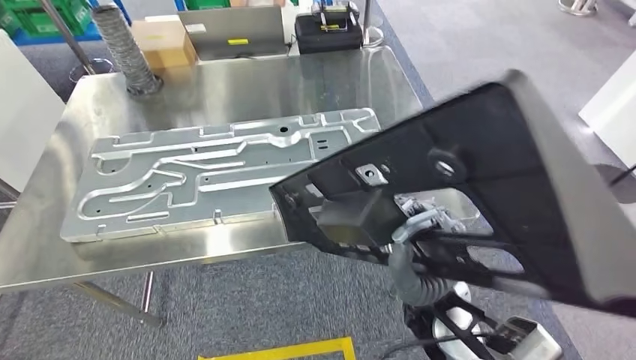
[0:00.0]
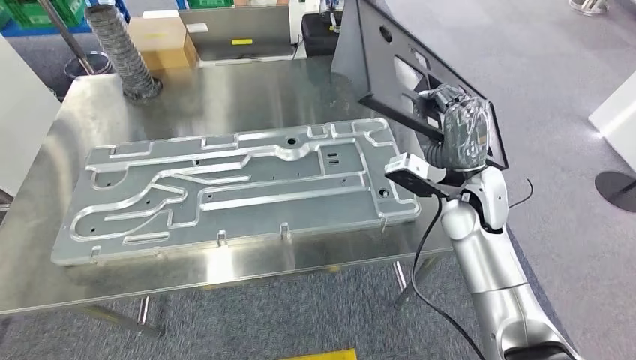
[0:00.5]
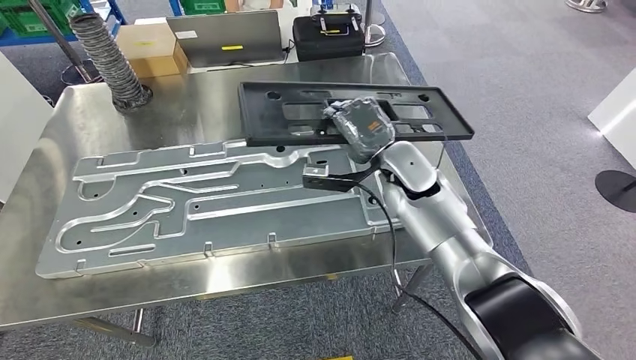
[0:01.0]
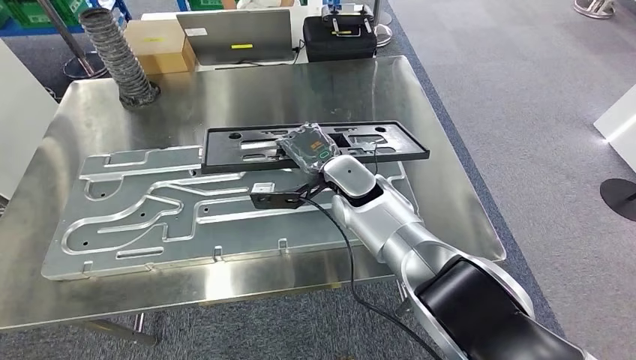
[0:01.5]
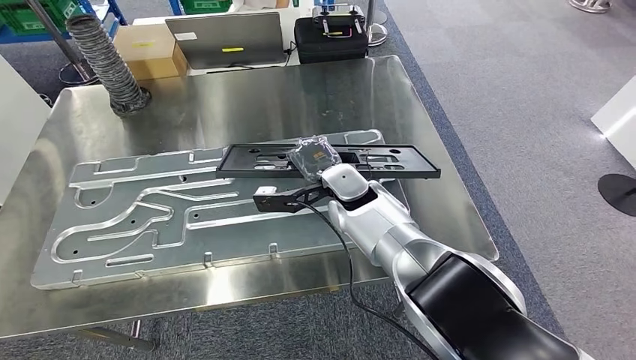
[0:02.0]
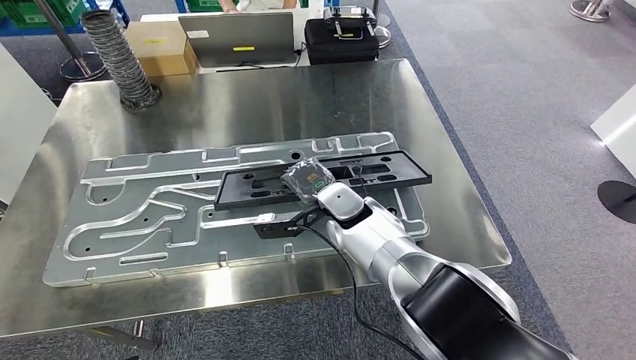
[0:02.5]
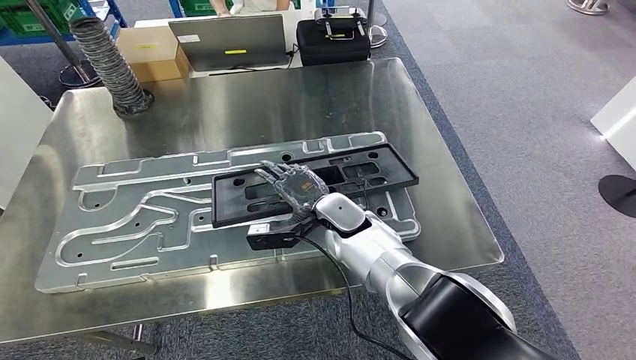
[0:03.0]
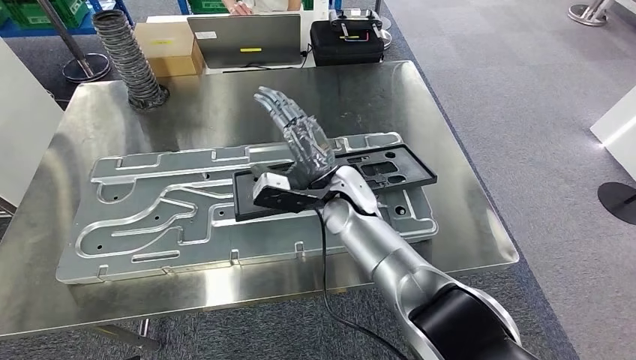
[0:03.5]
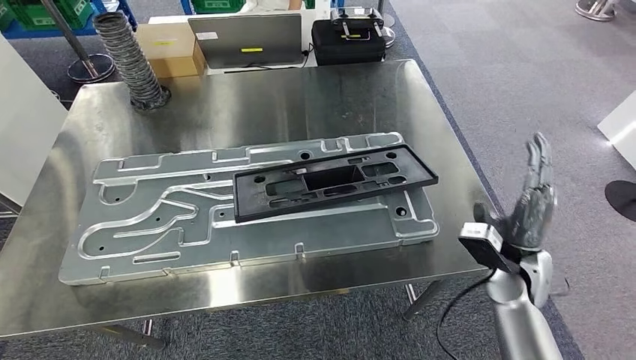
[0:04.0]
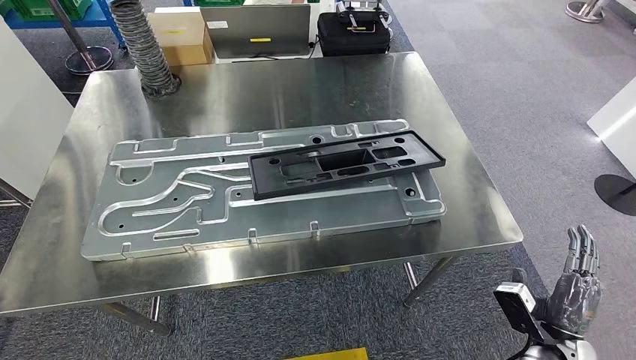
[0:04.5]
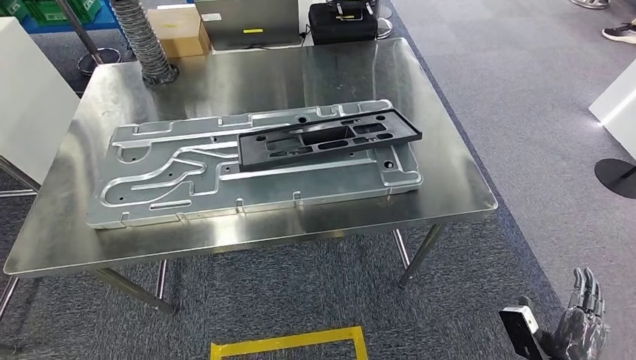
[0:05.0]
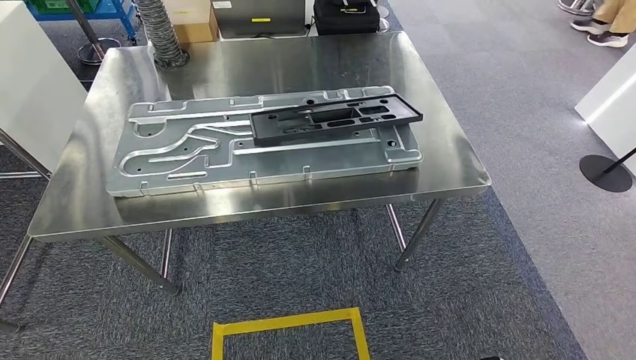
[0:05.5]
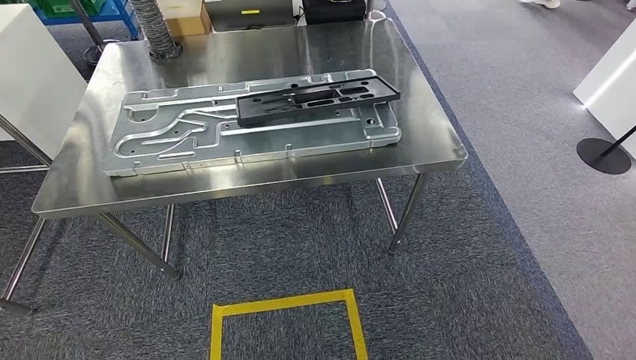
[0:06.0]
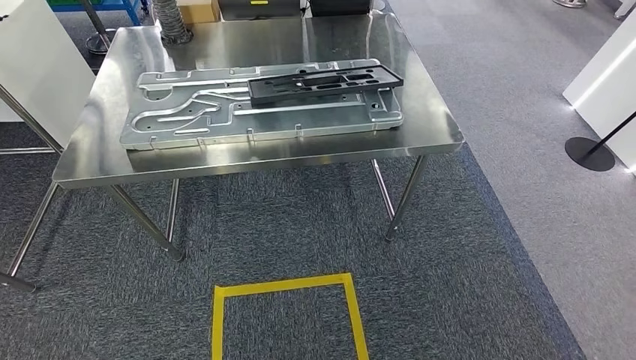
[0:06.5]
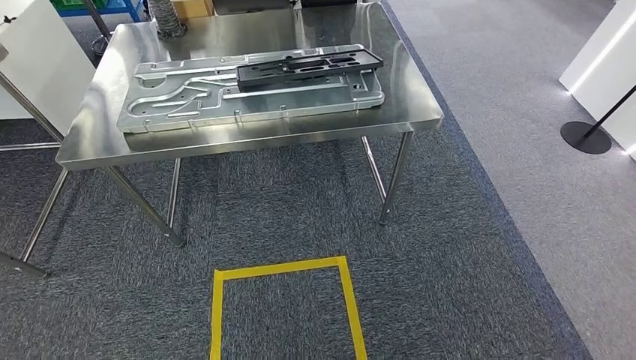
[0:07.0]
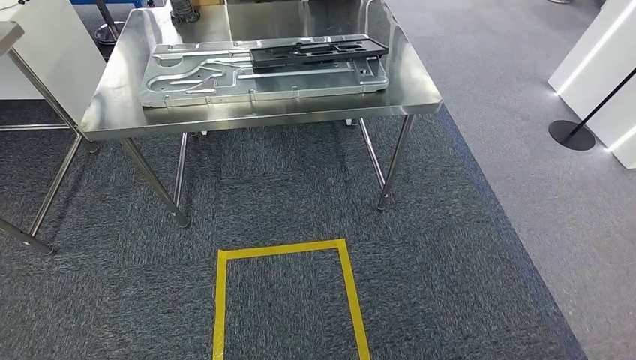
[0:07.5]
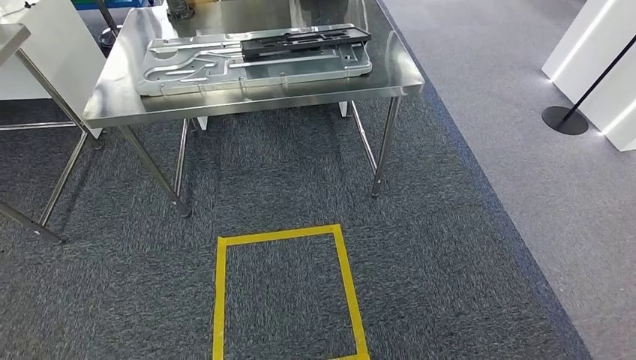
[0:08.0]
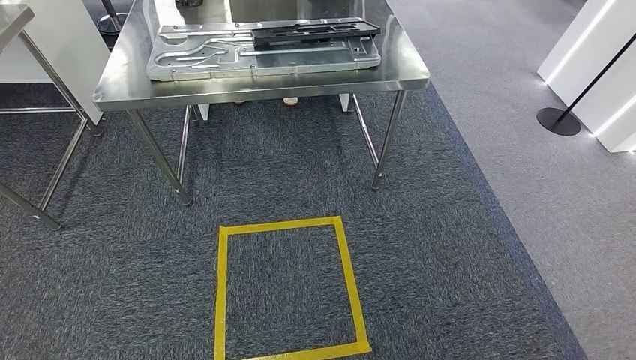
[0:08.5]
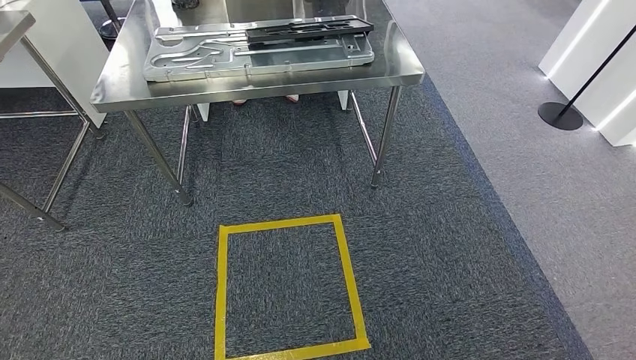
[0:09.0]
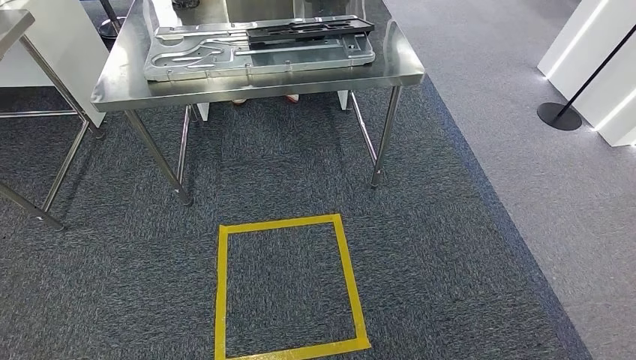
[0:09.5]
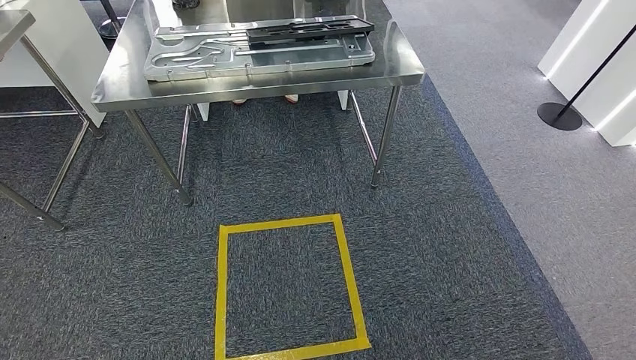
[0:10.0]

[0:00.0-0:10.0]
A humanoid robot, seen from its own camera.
Step, 0:01.5 to 0:03.5: Insert the large material into the corresponding slot on the workbench.
Step, 0:05.0 to 0:10.0: Return to the initial position at the shelf.
0:08.0 to 0:10.0: There are only small adjustments of the hands.
